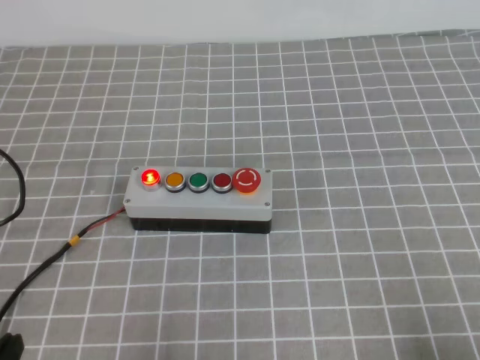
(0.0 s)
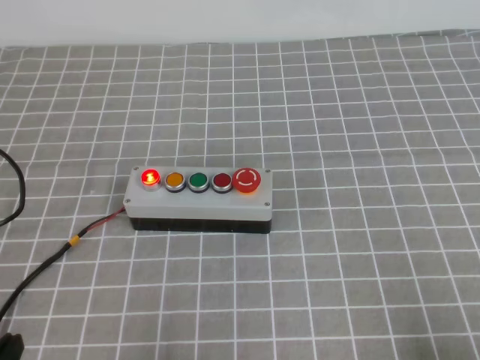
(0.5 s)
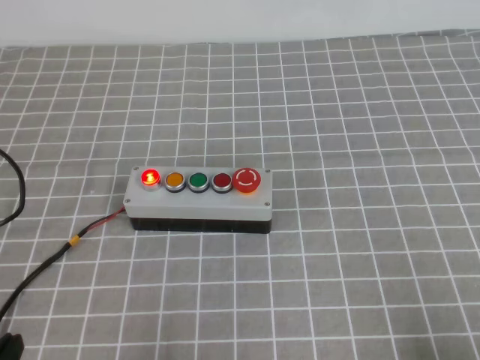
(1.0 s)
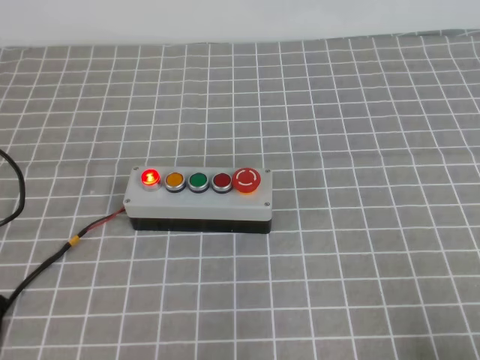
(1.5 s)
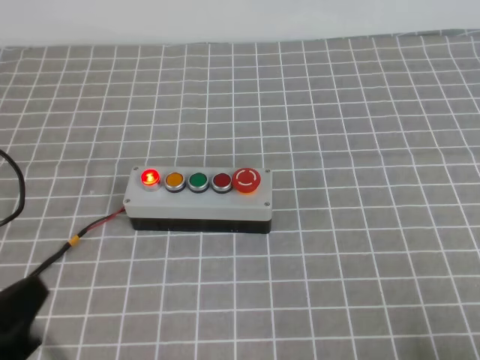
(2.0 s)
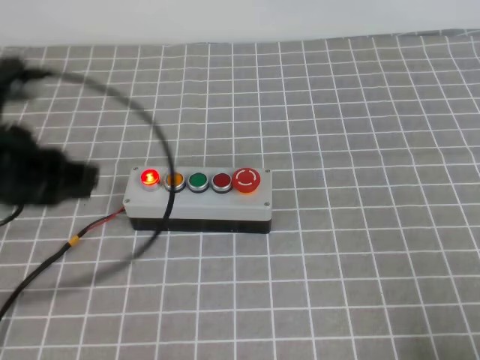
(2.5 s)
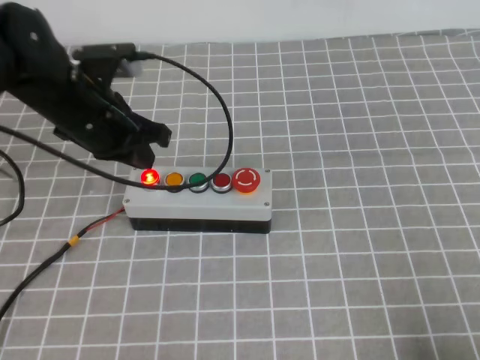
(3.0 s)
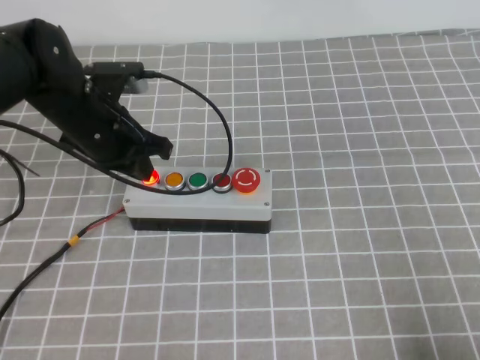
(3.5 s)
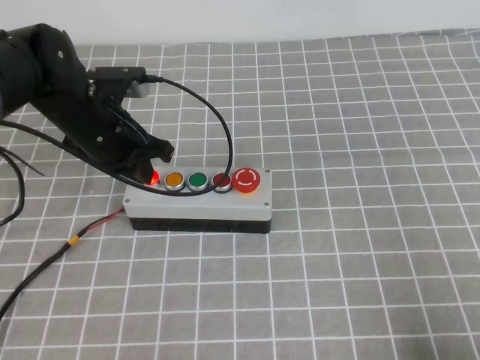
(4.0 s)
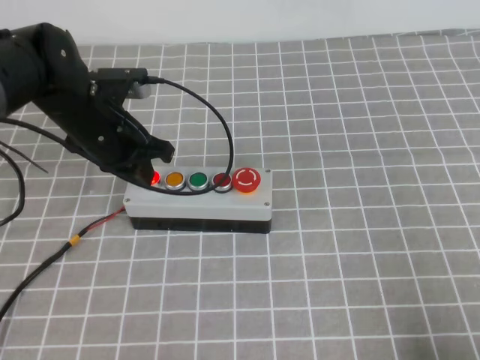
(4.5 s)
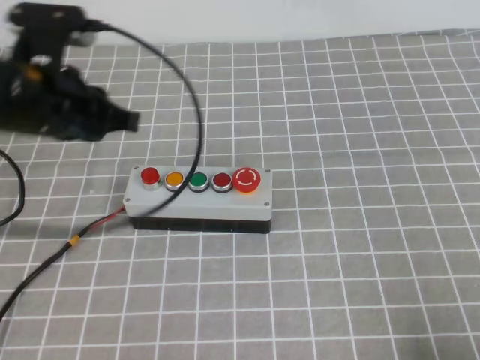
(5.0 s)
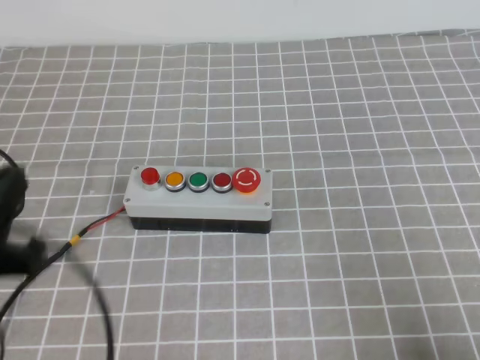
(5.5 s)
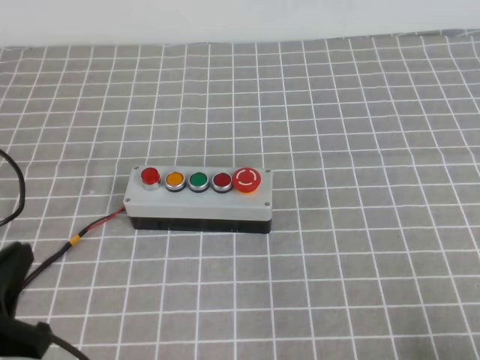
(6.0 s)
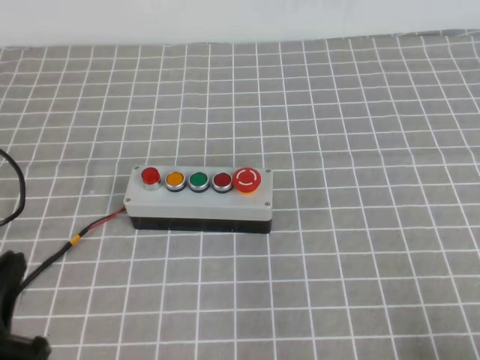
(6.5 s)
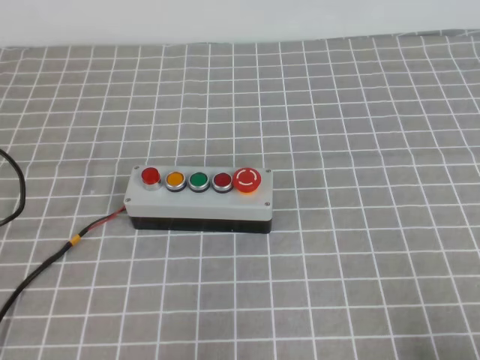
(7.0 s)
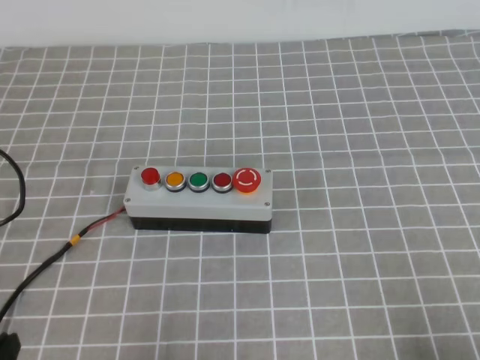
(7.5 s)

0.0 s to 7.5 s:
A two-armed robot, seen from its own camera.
Task of the whole recording: press the button switch on the grey tablecloth with the left gripper to turn off the button.
Step, 0.0 to 7.5 s: Press the button to turn off.
2.0 to 4.0 s: The left gripper travels forward by roughly 30 cm.
4.0 to 5.5 s: The left gripper goes approximately 20 cm backward.
5.5 to 7.5 s: The left gripper travels downward and backward by some 20 cm.
